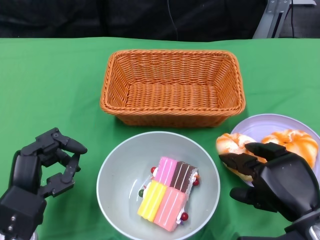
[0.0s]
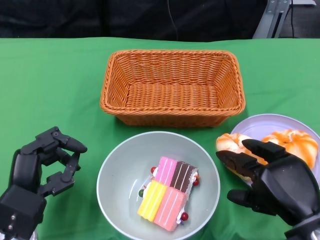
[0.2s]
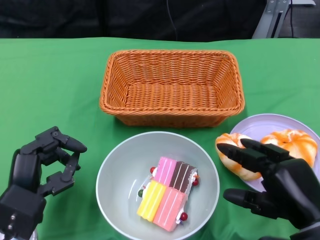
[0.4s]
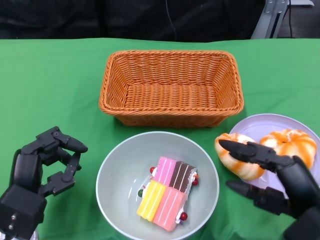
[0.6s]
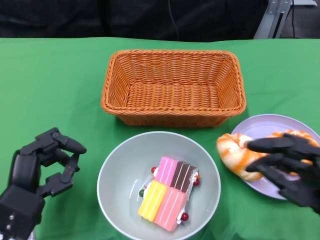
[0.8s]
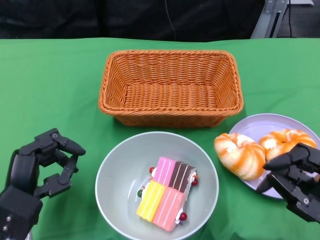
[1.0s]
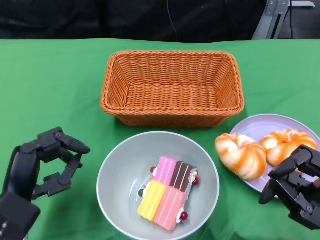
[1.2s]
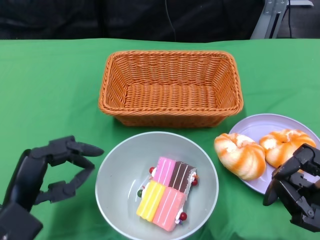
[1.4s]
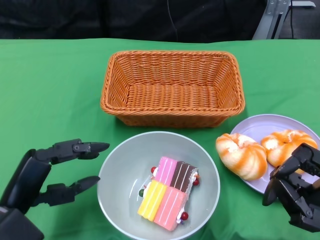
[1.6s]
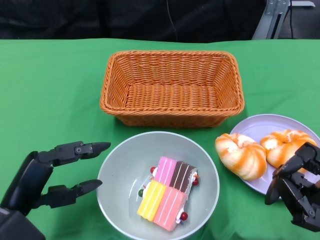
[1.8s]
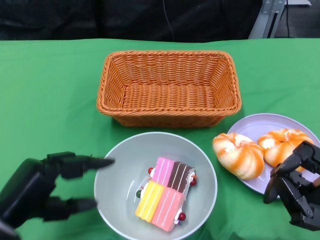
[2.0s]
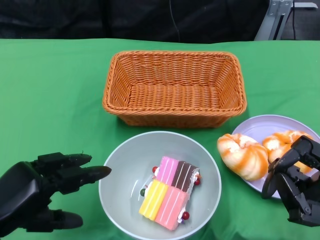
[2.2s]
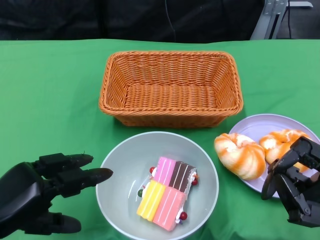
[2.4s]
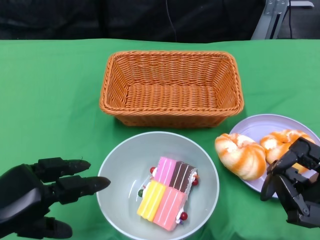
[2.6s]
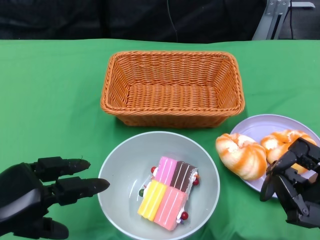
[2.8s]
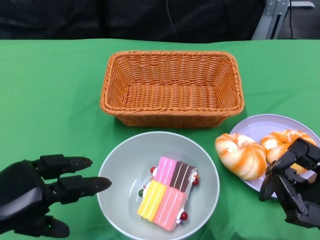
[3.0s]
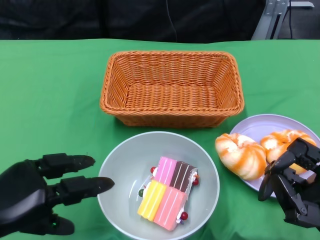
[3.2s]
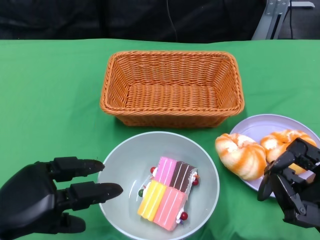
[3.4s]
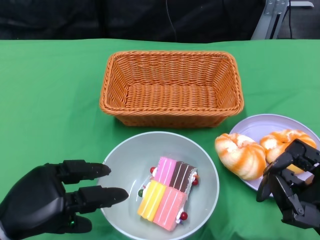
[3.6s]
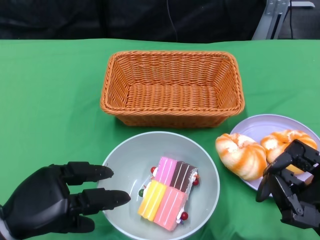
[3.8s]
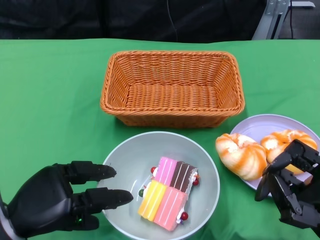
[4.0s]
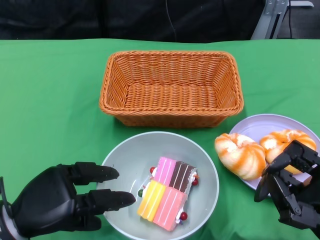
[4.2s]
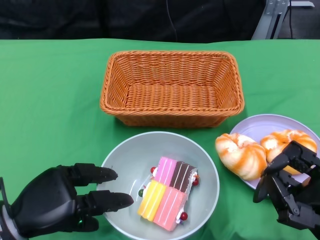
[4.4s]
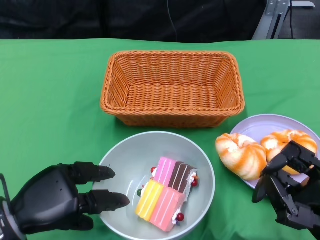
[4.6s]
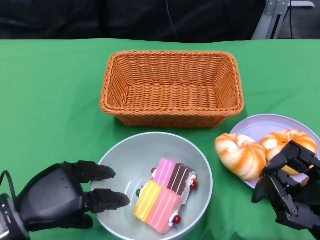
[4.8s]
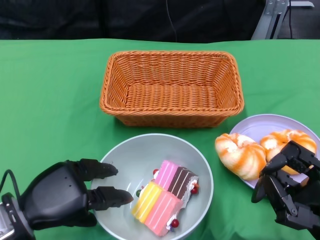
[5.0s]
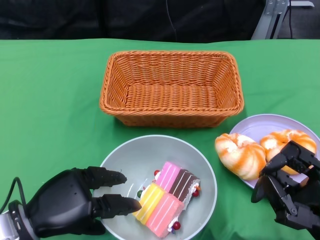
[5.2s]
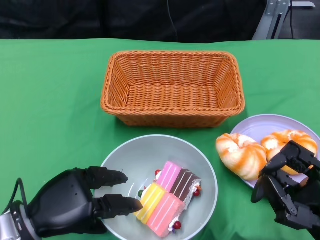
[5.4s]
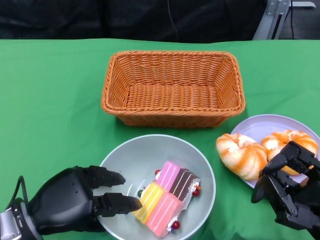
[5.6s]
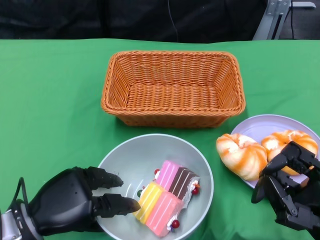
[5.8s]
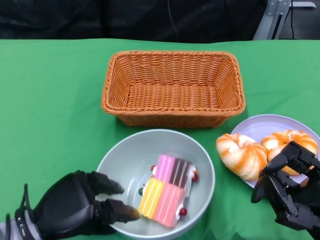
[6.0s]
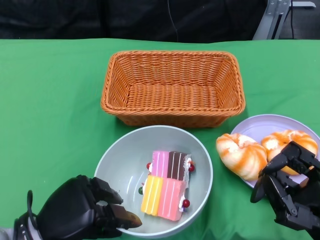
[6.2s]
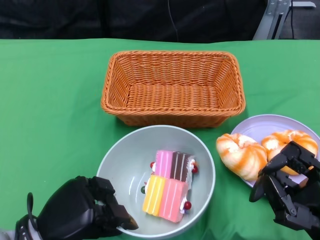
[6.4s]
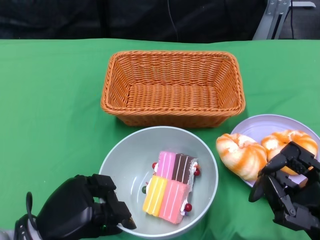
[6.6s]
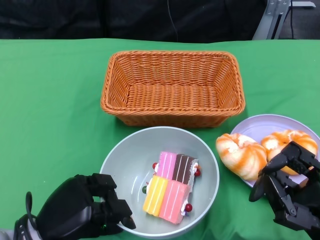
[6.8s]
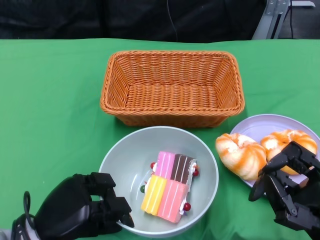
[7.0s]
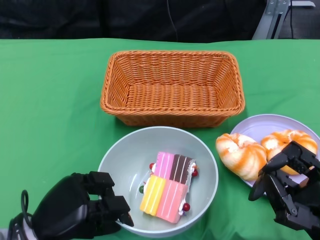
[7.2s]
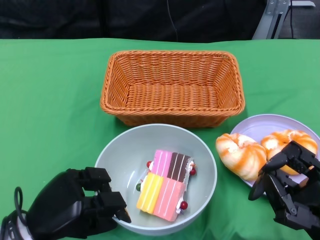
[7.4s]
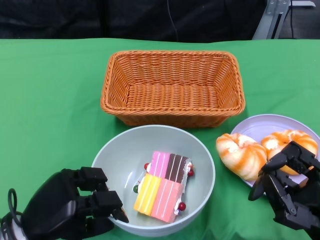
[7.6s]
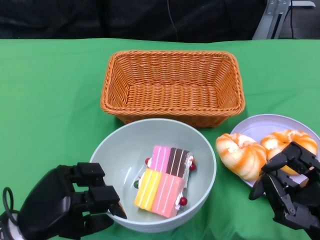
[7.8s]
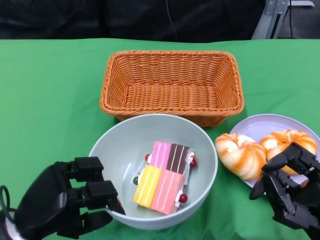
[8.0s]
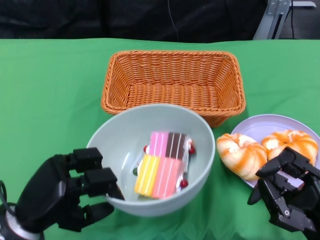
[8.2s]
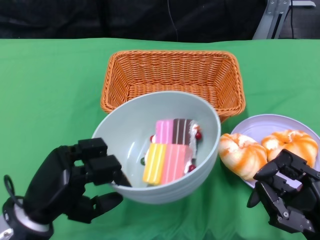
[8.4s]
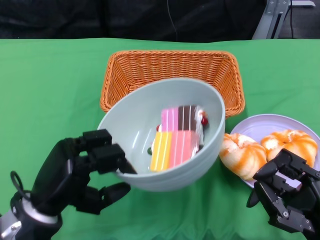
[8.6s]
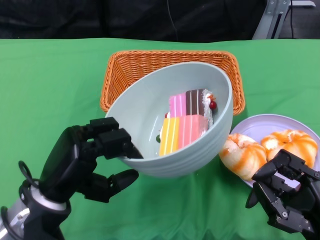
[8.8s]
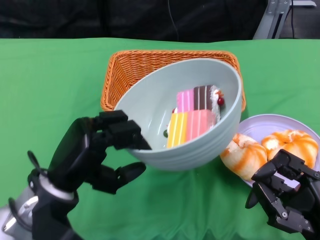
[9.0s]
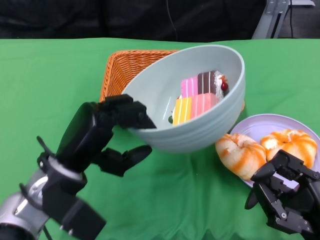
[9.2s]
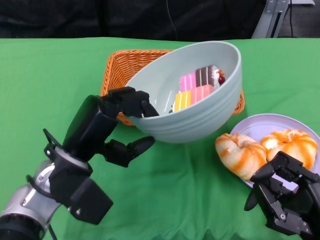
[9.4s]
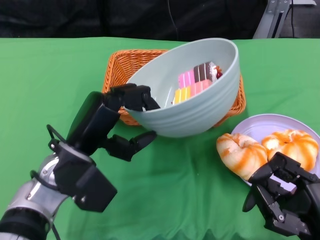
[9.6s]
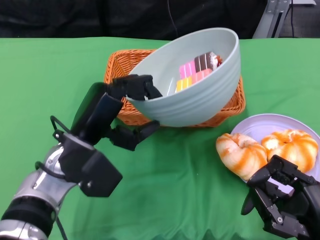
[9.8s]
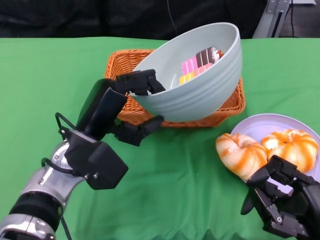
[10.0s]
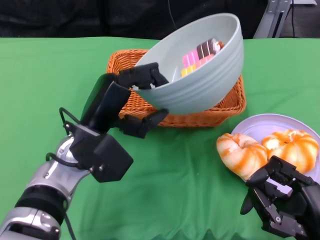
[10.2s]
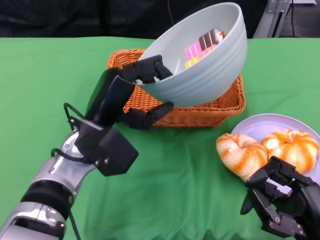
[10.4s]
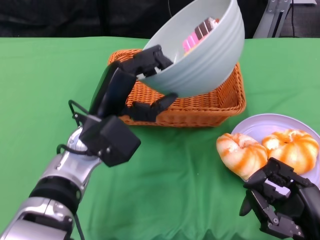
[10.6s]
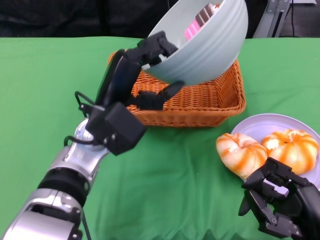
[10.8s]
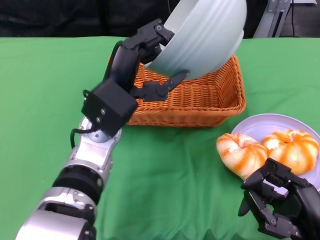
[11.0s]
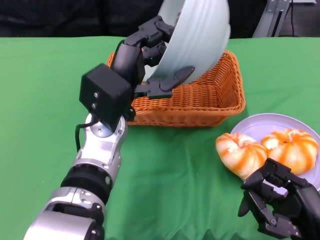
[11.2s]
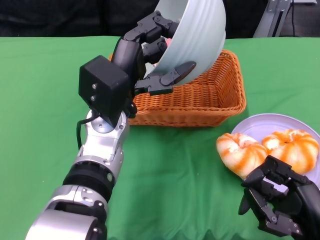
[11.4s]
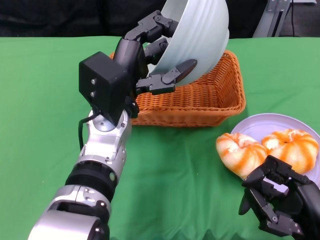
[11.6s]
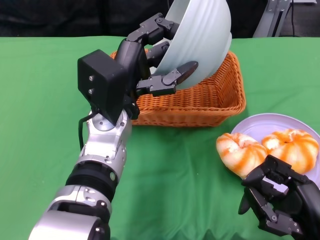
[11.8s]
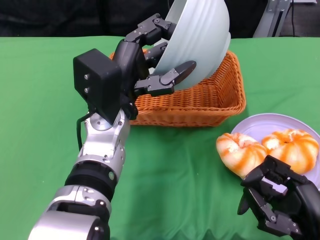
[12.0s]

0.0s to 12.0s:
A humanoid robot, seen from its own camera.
Step, 0.8s to 7.0s: Grasp the bowl with the left gripper.
0.0s to 1.6s: The right hand shifts by about 5 cm.
1.6s to 3.0s: The left hand changes place by roughly 5 cm.
3.0s to 4.4s: The left hand shifts by some 5 cm.
4.4s to 7.6s: There are only small adjustments of the hands.
7.6s to 9.0s: The left hand goes some 5 cm upward.
9.0s to 10.4s: The left hand travels forward and to the right by roughly 10 cm.
10.4s to 12.0s: The left hand ends up roughly 5 cm from where it was.

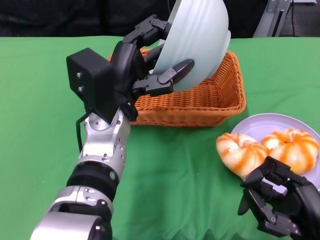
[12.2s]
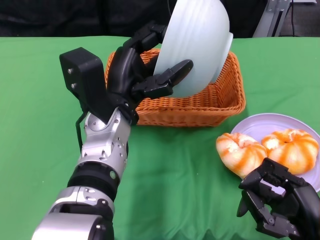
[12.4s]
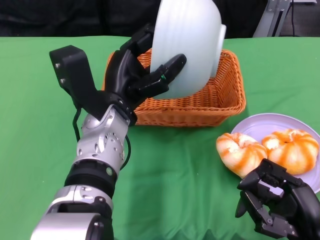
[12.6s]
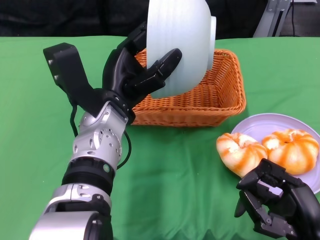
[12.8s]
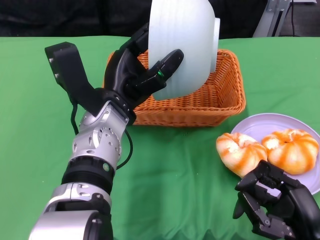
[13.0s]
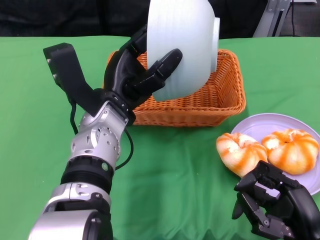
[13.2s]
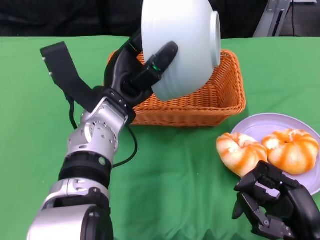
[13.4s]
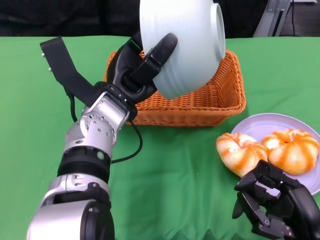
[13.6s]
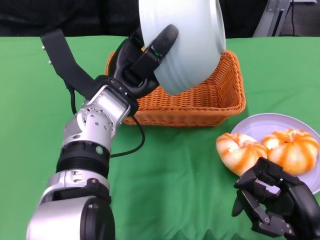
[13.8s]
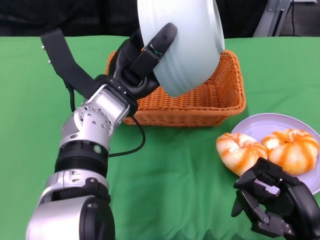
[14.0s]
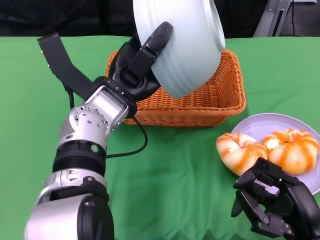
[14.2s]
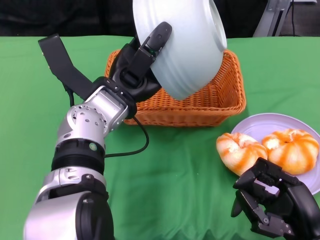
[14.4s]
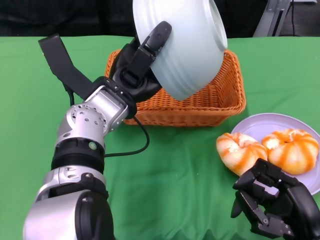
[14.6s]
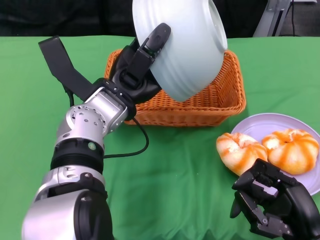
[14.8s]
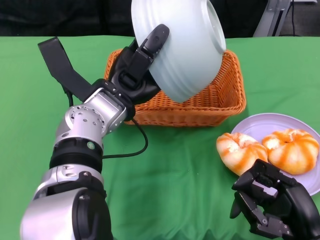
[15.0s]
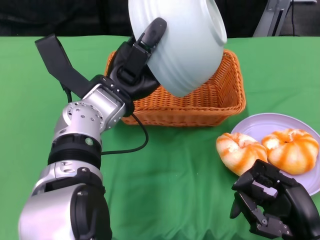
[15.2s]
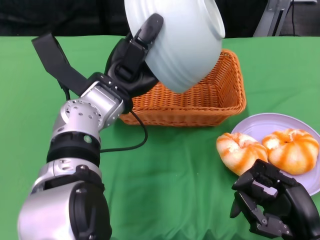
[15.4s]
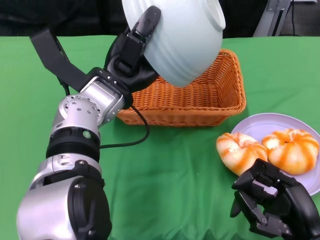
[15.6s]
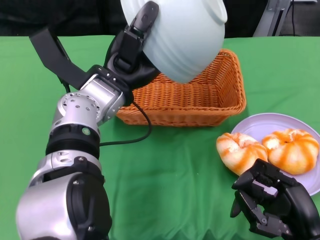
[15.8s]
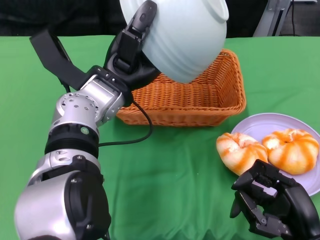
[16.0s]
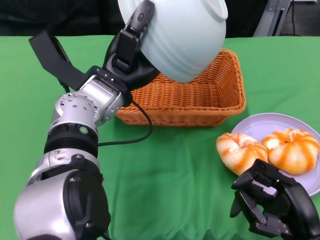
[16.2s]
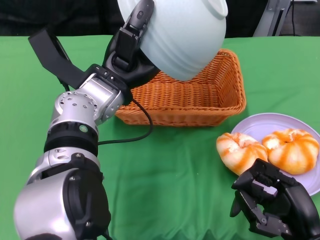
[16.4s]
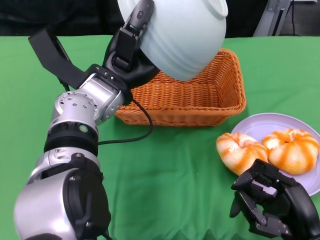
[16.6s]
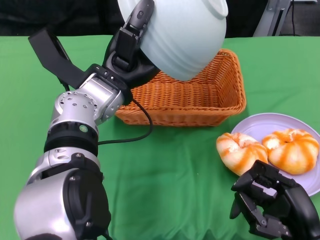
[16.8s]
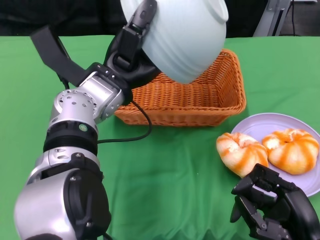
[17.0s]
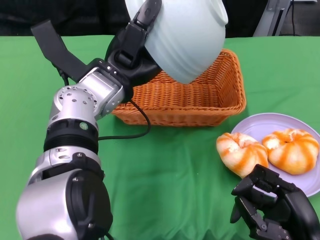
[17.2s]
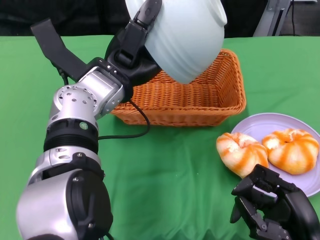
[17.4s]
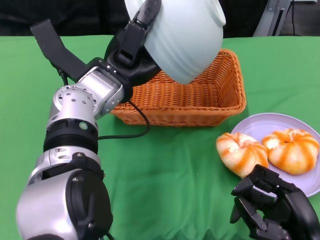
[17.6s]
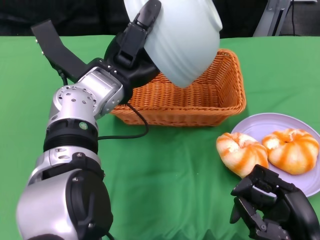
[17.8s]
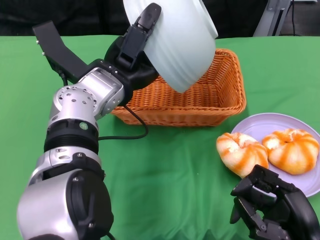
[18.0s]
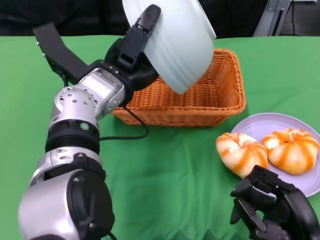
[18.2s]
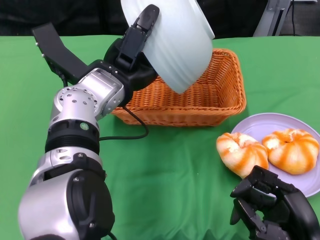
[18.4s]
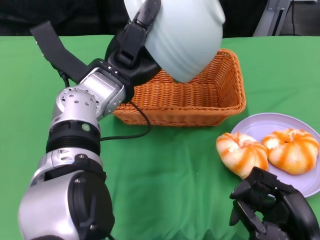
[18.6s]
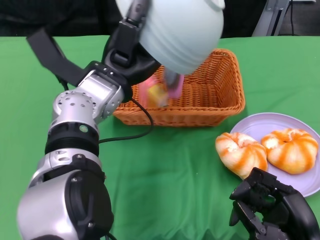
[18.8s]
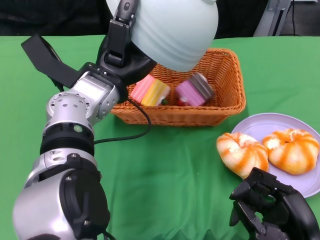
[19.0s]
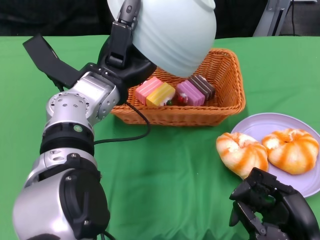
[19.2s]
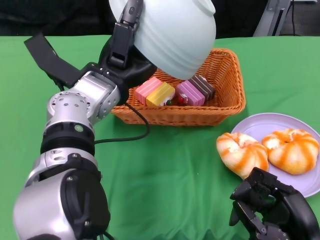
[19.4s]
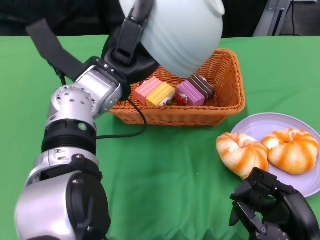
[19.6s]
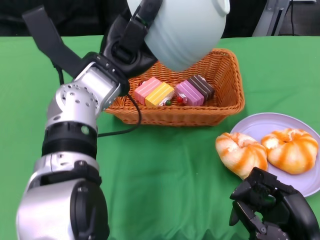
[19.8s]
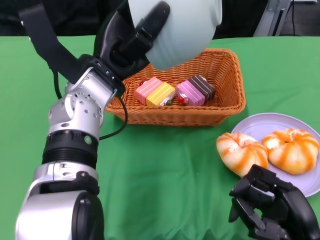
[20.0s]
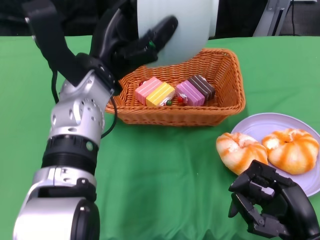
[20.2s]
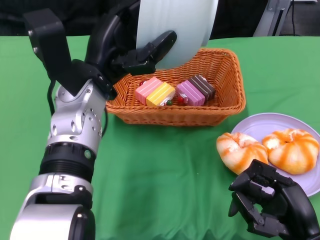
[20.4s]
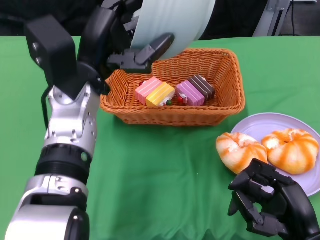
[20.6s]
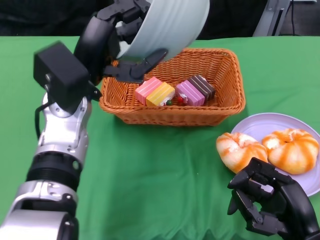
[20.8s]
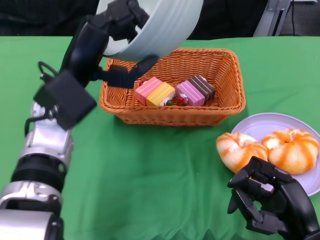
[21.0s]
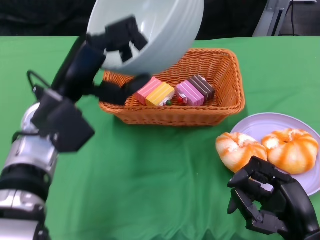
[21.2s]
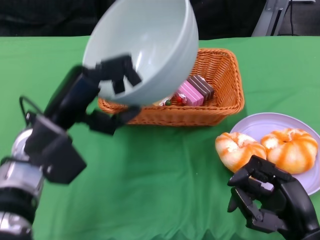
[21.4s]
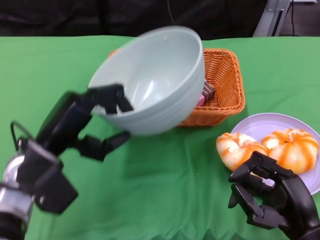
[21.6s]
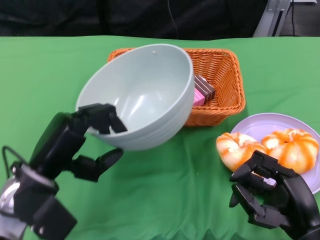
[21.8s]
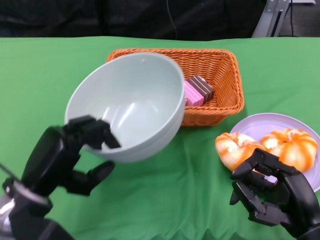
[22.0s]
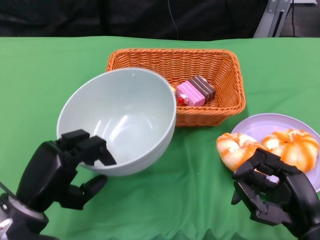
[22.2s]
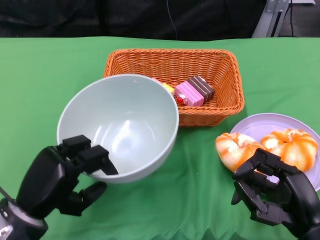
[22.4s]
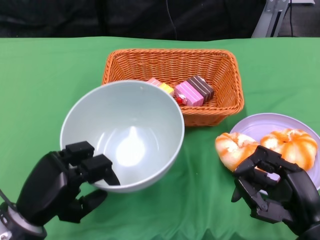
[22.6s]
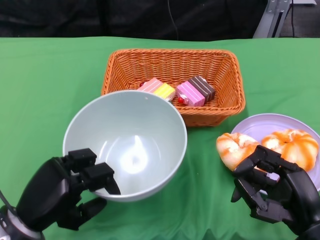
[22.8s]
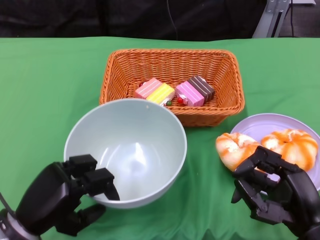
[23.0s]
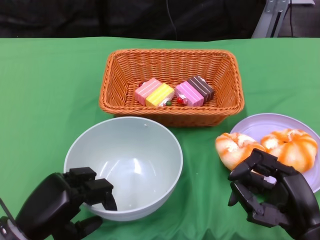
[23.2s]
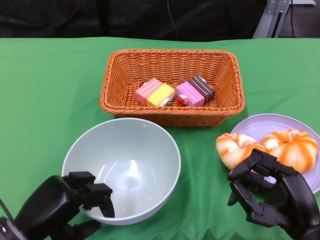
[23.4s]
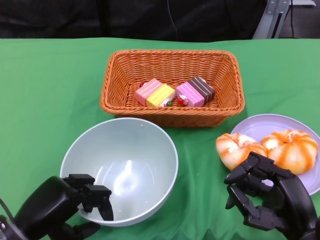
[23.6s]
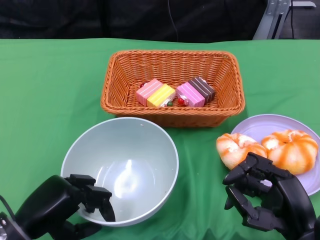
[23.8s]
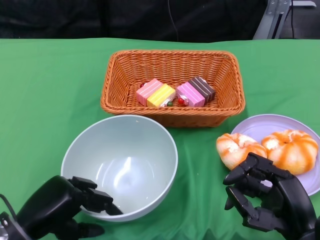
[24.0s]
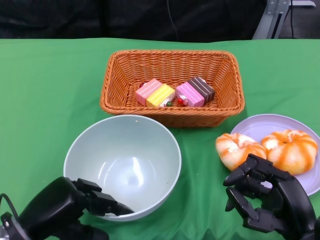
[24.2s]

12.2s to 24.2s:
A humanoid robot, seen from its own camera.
Step, 12.2s to 21.0s: Pour the cake into the basket with the left gripper.
13.8s to 15.2s: The hands make only small movements.
19.8s to 21.2s: The left hand goes approximately 5 cm to the left.
21.2s to 22.6s: The left hand goes roughly 15 cm downward, backward and to the left.
